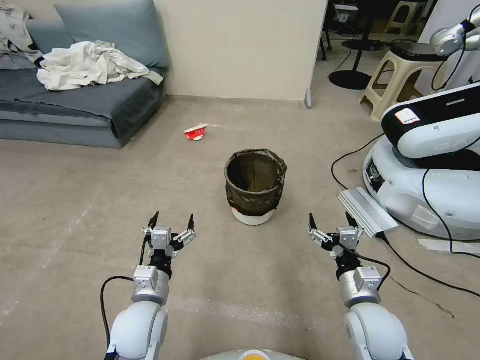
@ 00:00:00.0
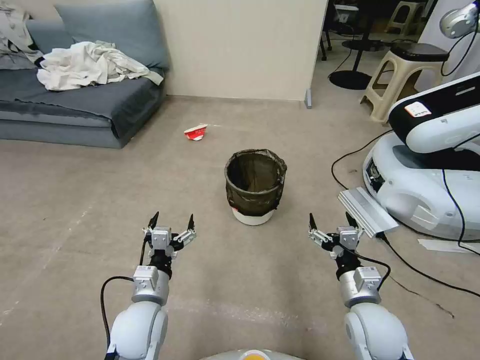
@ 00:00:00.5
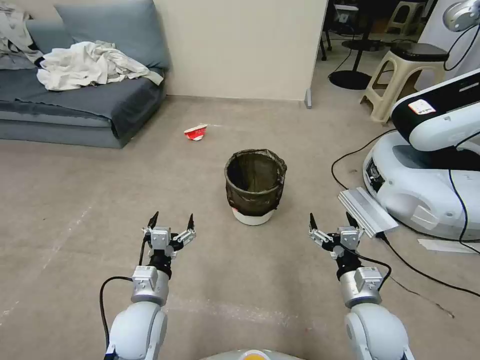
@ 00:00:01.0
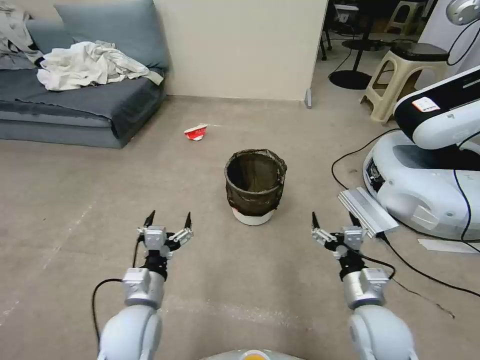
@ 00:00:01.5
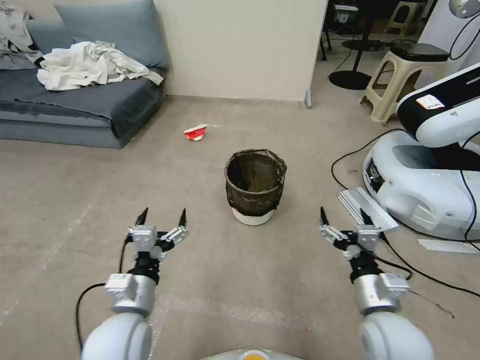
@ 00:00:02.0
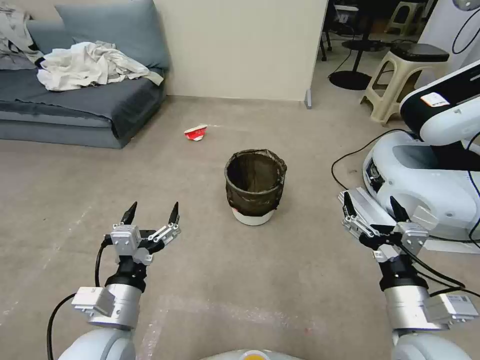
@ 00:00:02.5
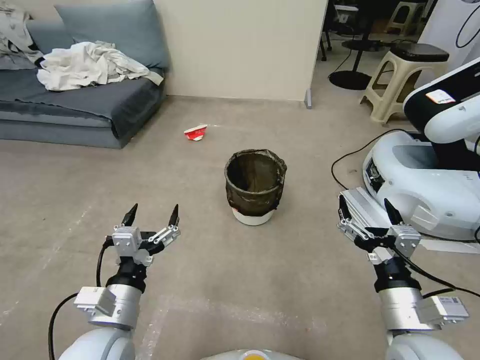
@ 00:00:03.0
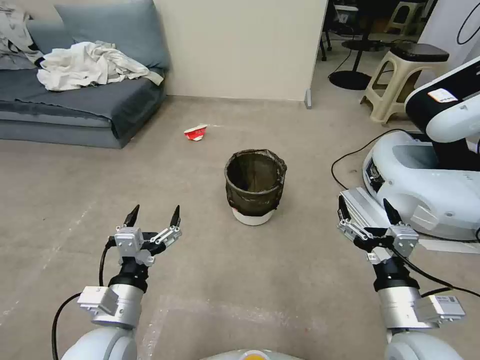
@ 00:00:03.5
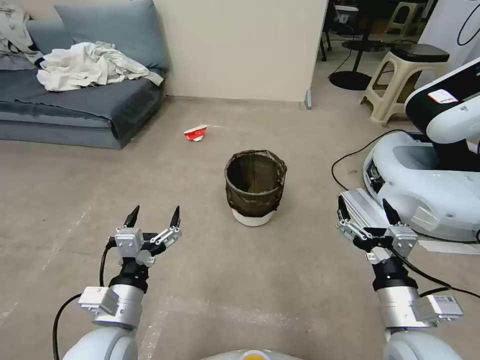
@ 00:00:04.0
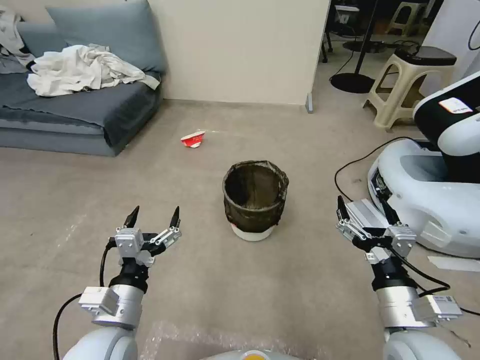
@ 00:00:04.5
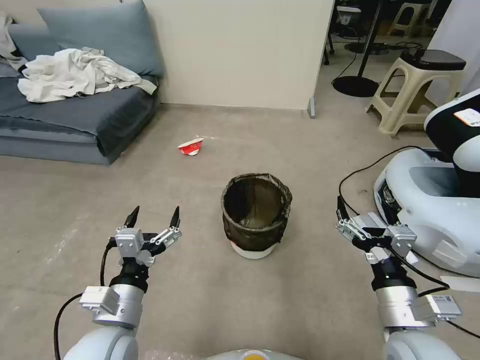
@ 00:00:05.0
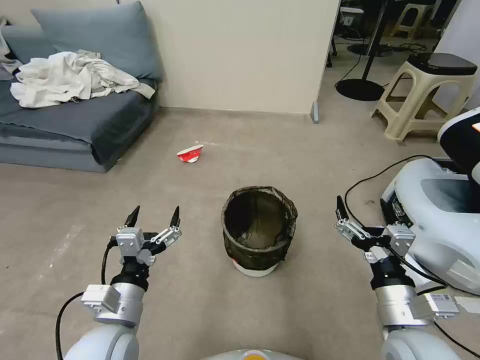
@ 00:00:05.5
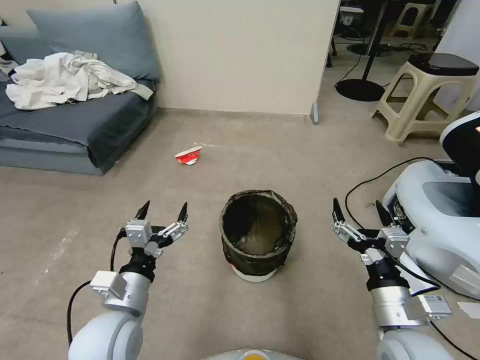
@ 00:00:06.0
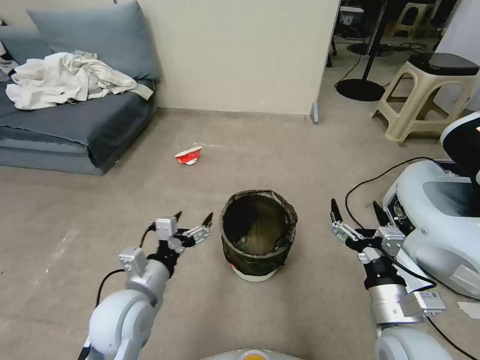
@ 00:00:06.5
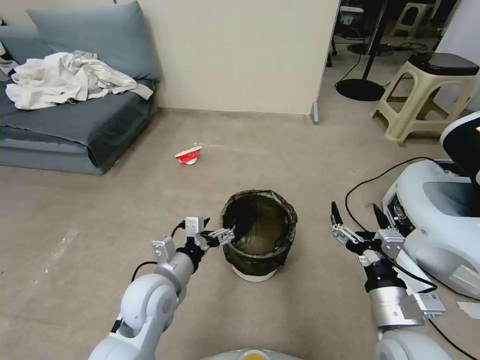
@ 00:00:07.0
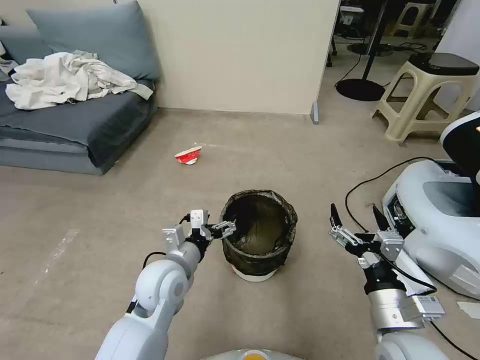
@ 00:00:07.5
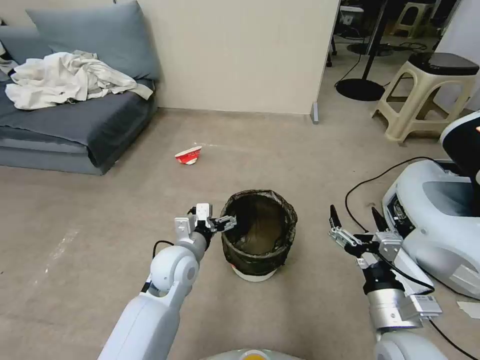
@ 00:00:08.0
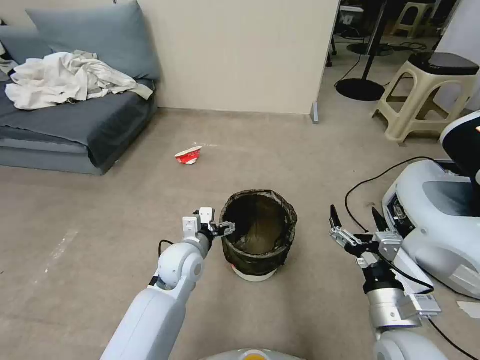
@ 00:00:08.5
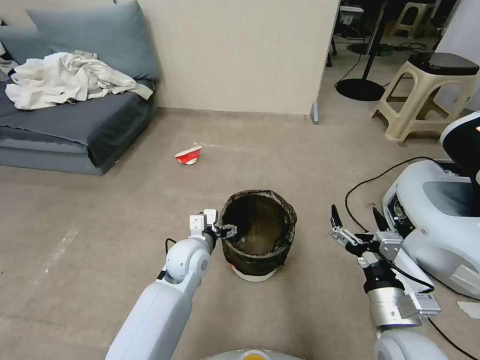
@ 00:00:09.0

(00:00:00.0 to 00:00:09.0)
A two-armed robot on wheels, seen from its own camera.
Task of the whole recording: Pick up the trash can from the floor.
00:00:02.0 - 00:00:04.5: Both grippers move upward and backward, some 10 cm.
00:00:04.5 - 00:00:07.0: The left gripper moves forward, approximately 10 cm.
00:00:07.0 - 00:00:09.0: The left gripper goes some 10 cm forward and to the right.

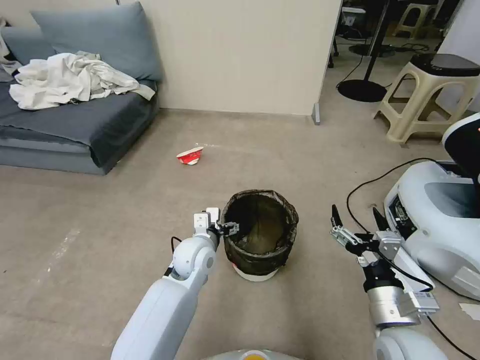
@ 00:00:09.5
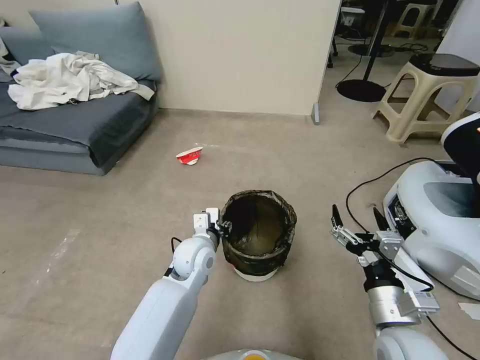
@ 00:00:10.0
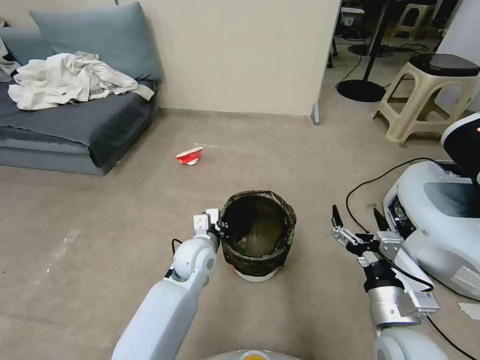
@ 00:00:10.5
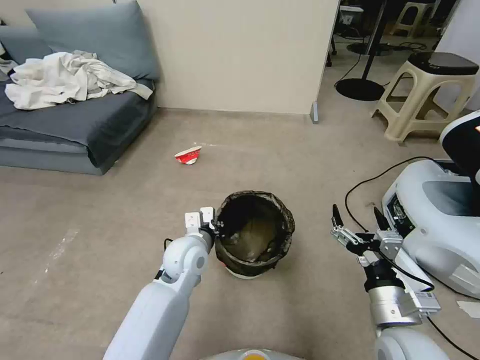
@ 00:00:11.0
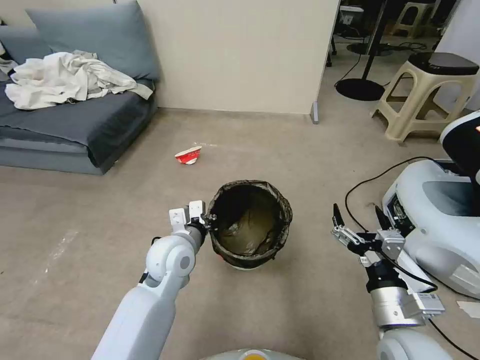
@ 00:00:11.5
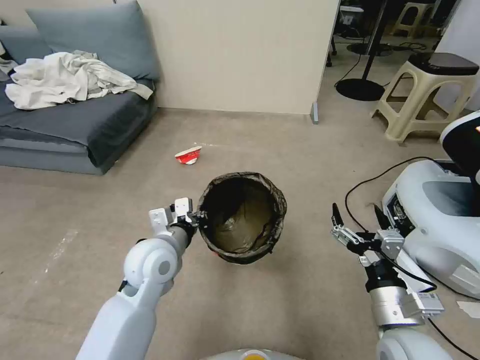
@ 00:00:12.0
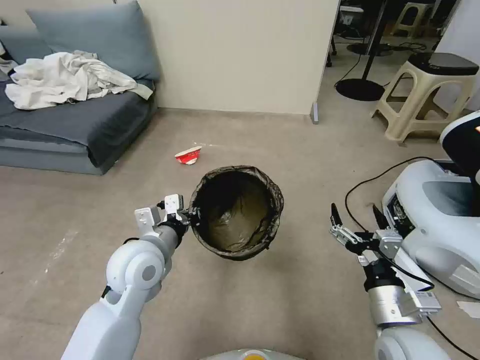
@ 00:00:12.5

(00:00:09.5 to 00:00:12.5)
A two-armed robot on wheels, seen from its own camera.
Task of the whole recording: Pick up the trash can from the floor.
00:00:09.5 - 00:00:11.0: The left gripper closes its fingers.
00:00:11.0 - 00:00:12.5: The left gripper travels upward, to the left and backward by about 10 cm.
